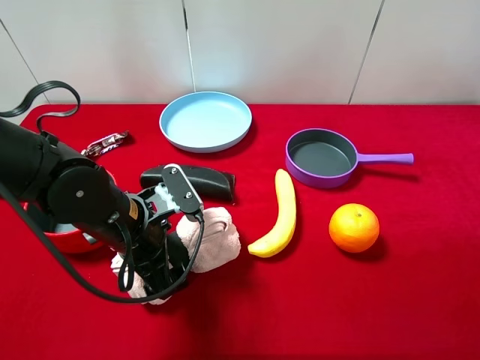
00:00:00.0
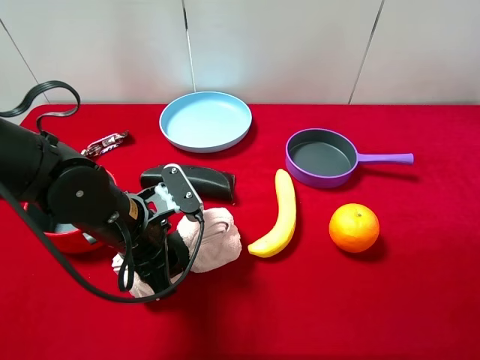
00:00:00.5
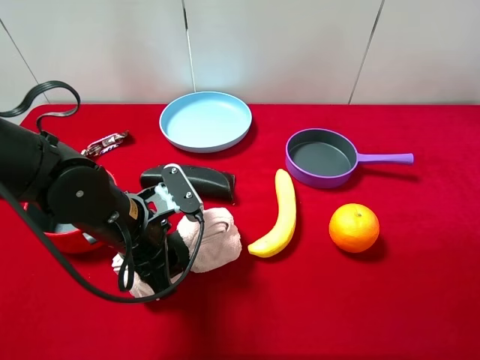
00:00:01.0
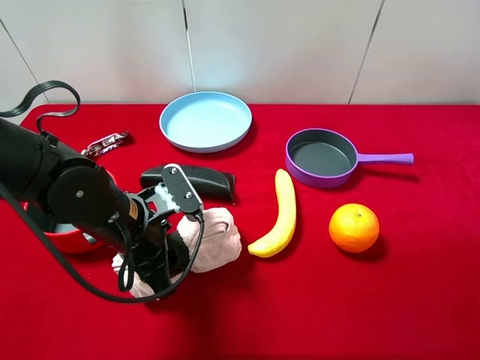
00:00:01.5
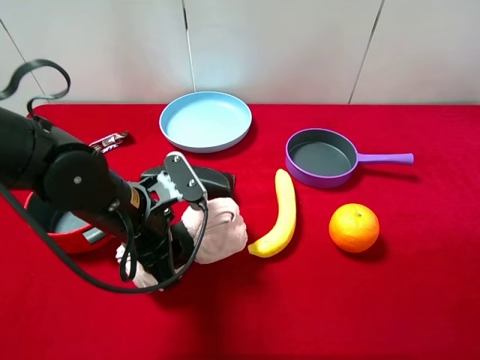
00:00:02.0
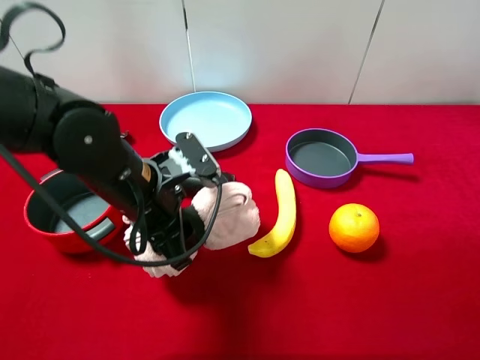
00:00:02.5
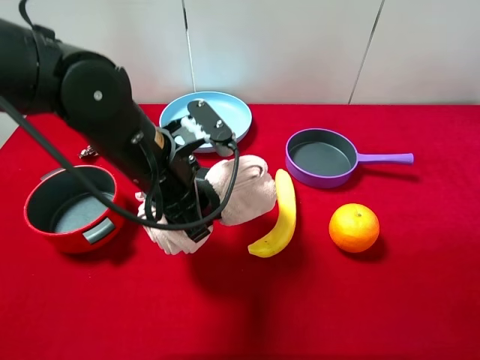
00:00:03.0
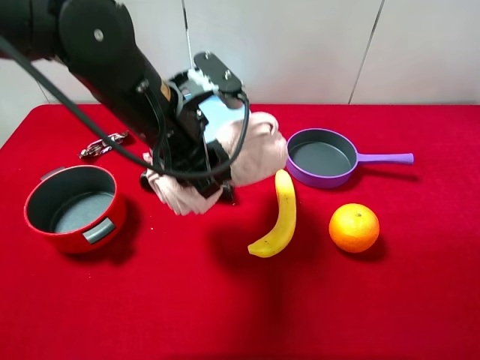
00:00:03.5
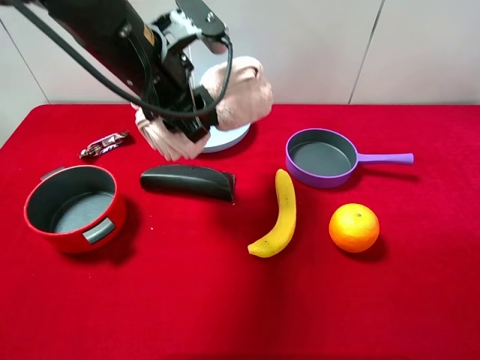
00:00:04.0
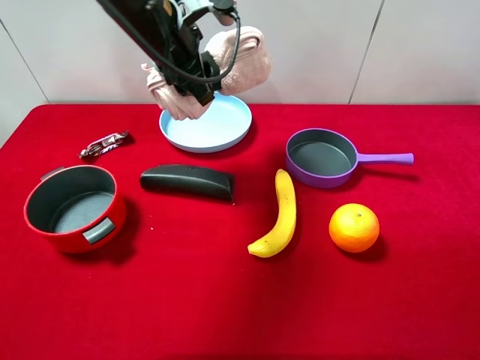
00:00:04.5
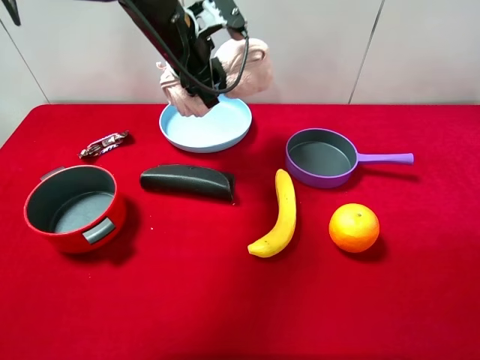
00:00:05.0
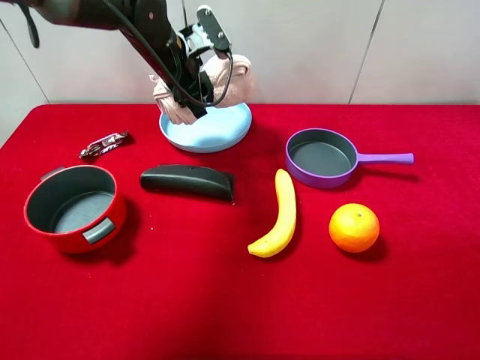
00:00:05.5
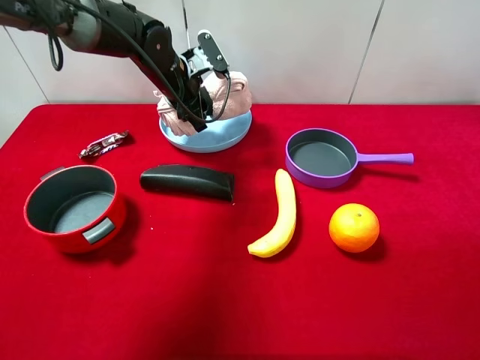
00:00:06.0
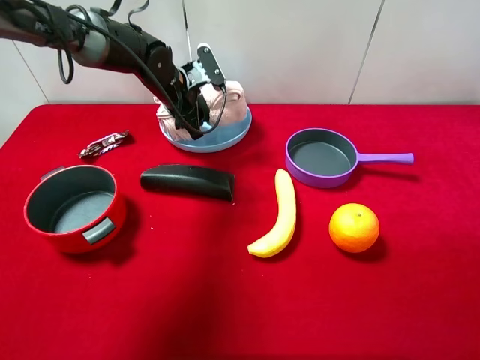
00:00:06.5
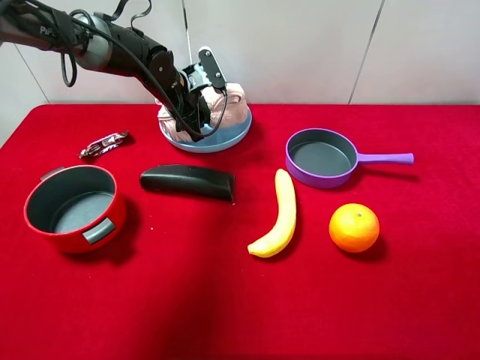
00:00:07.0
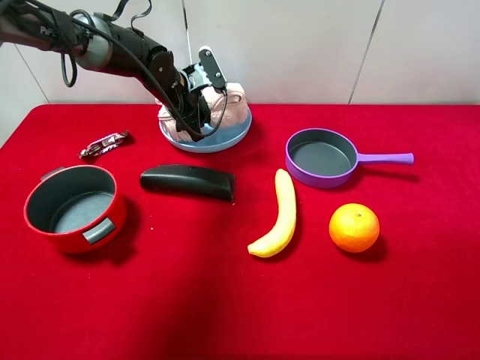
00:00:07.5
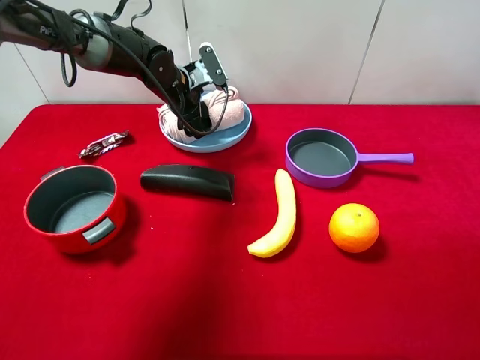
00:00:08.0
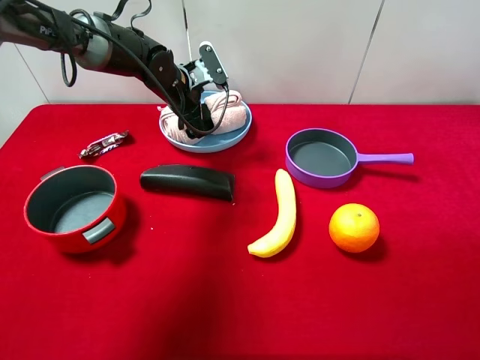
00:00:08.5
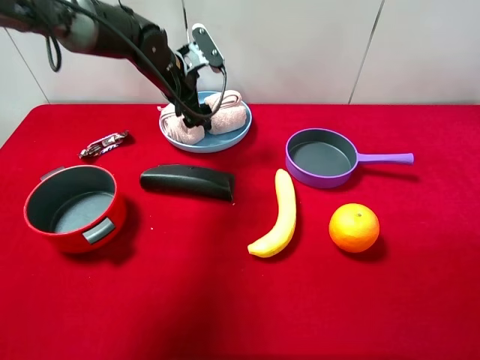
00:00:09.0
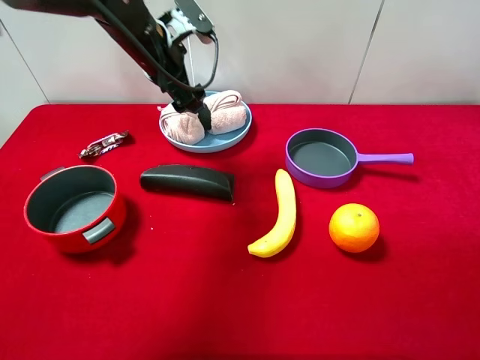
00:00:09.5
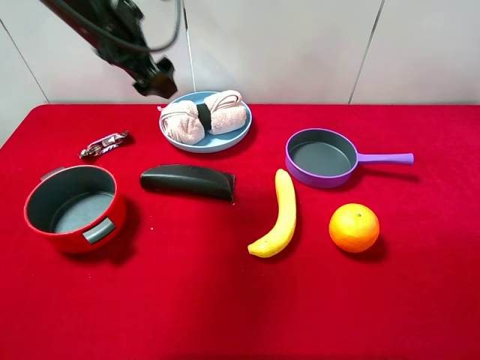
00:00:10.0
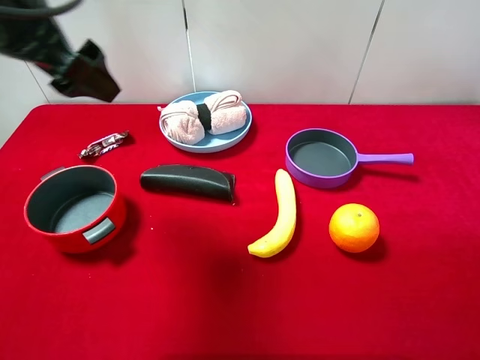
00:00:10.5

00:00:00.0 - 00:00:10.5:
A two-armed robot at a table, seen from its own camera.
Task of the whole recording: pick up an item with a gripper and place it in a random container on the desktop.
00:00:00.0 - 00:00:02.0: The left gripper closes.
00:00:02.0 - 00:00:04.0: The left gripper moves upward and forward, approximately 15 cm.
00:00:04.0 - 00:00:06.5: The left gripper shifts approximately 20 cm forward and downward.
00:00:06.5 - 00:00:08.5: The left gripper opens its fingers.
00:00:08.5 - 00:00:10.5: The left gripper moves backward, upward and to the left, some 30 cm.

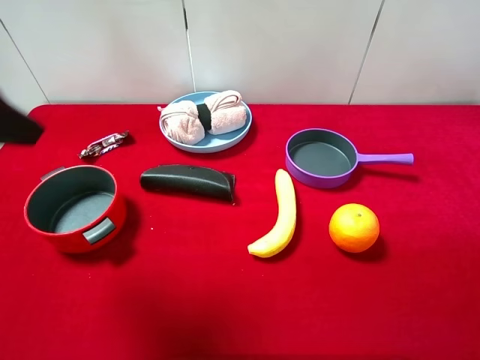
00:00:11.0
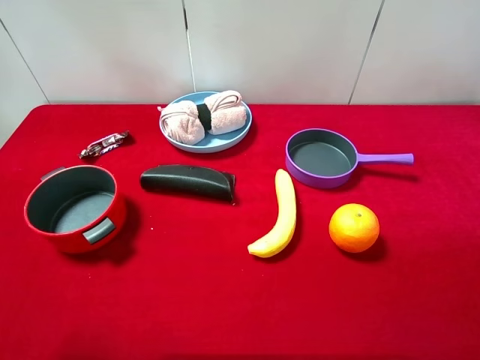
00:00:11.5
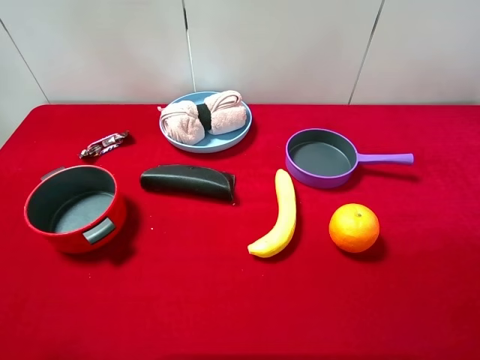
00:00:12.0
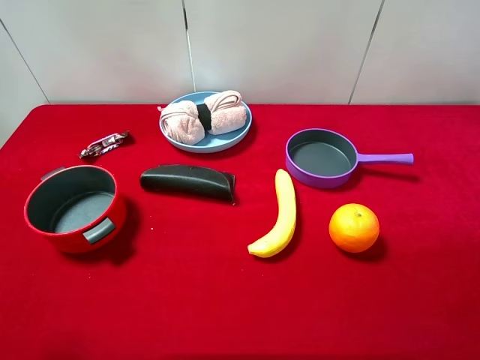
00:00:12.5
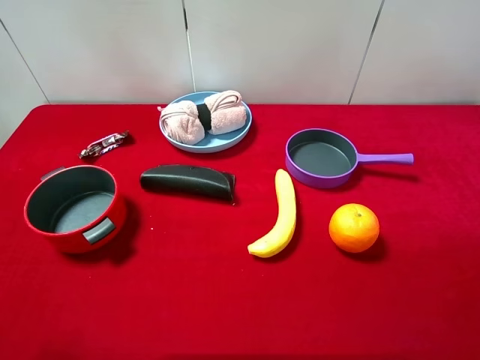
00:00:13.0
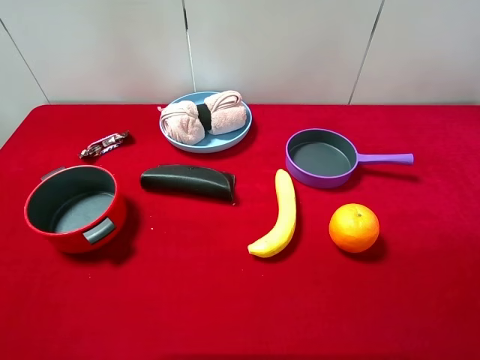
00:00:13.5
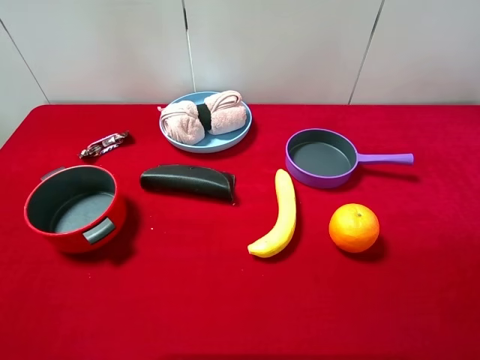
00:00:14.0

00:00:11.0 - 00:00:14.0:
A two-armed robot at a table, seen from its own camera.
Task of the whole recording: pick up an item with a gripper and place it in a random container on the desktop.
00:00:11.0 - 00:00:12.5: The left gripper shifts some 15 cm backward and downward.

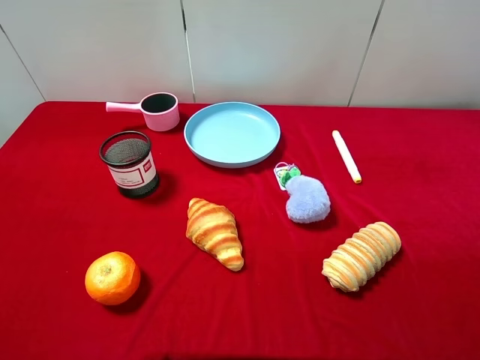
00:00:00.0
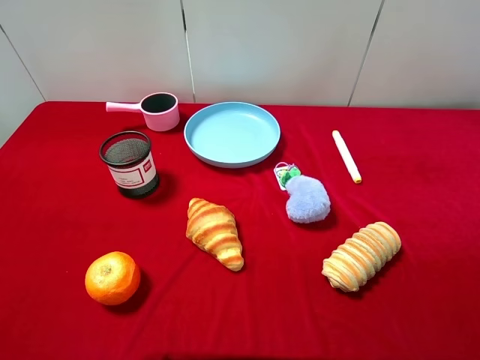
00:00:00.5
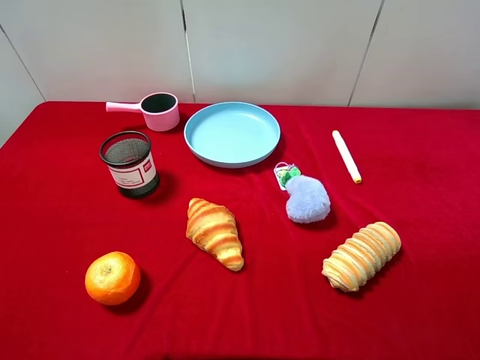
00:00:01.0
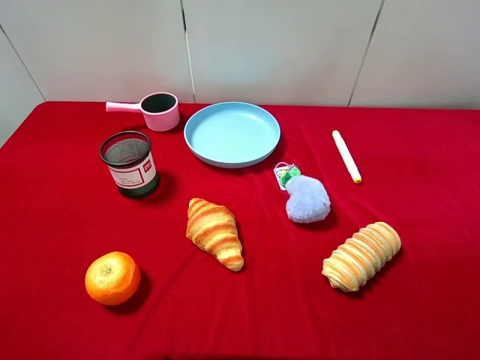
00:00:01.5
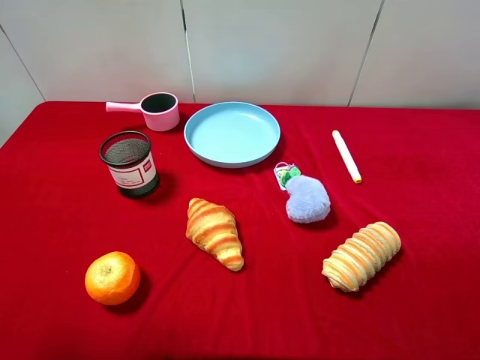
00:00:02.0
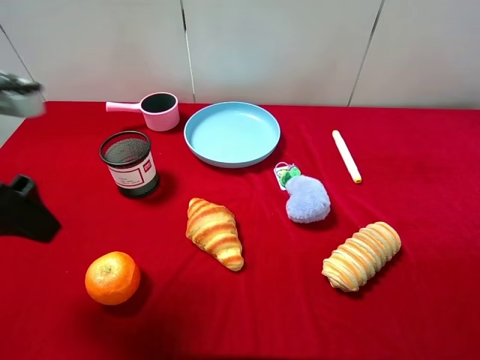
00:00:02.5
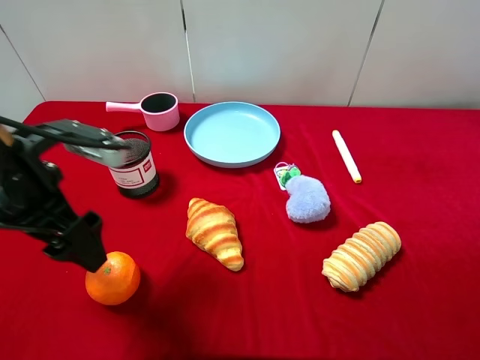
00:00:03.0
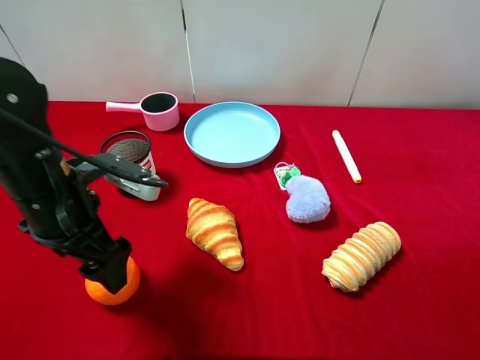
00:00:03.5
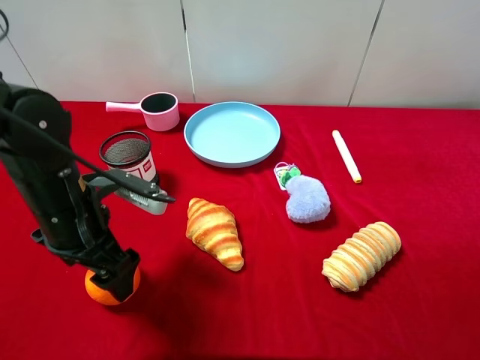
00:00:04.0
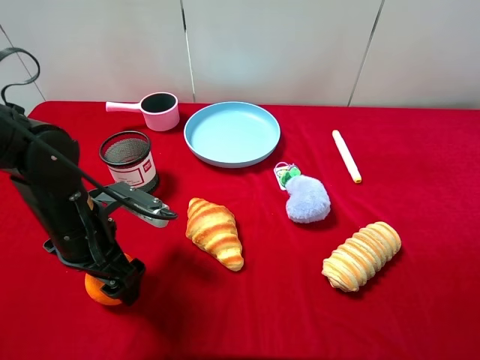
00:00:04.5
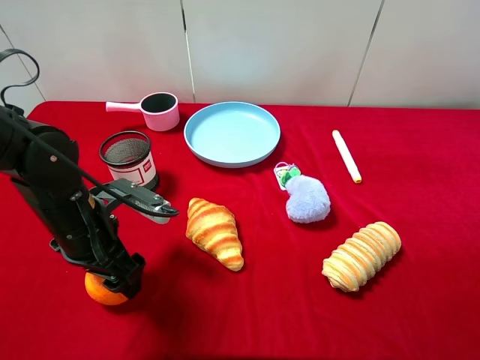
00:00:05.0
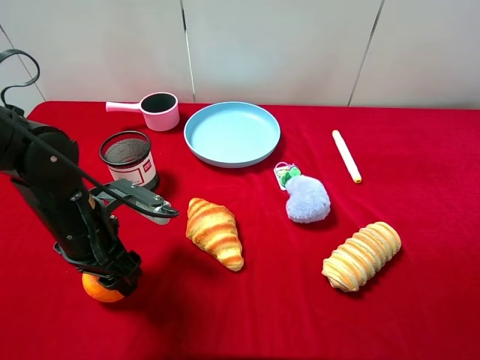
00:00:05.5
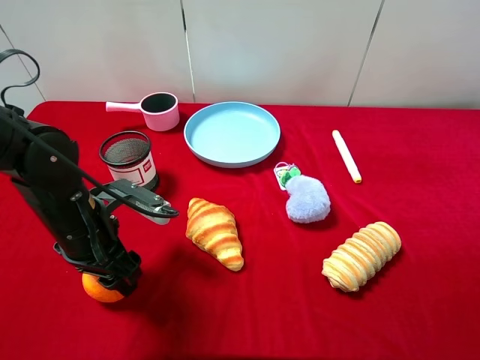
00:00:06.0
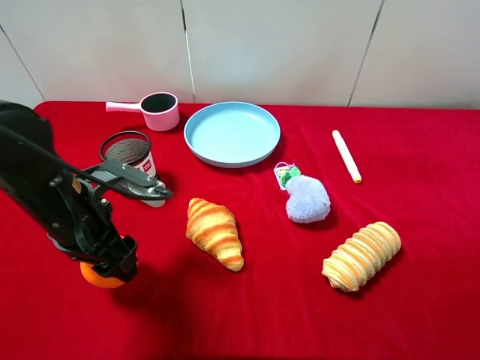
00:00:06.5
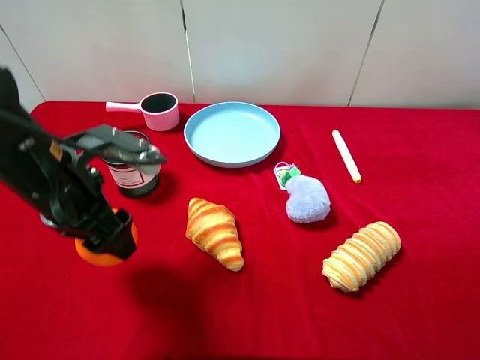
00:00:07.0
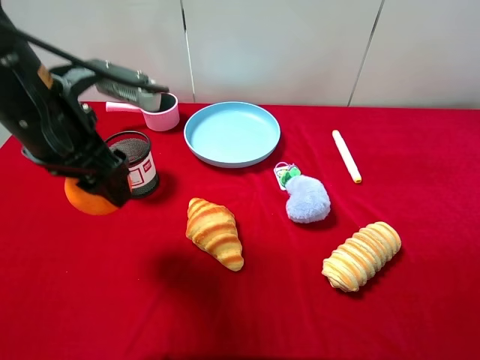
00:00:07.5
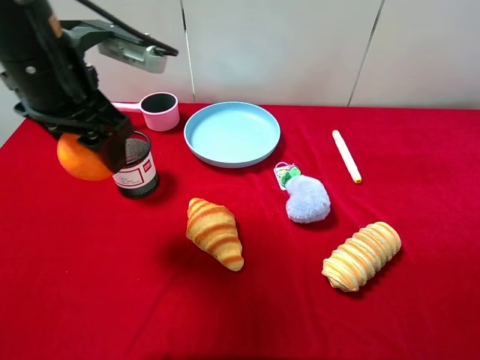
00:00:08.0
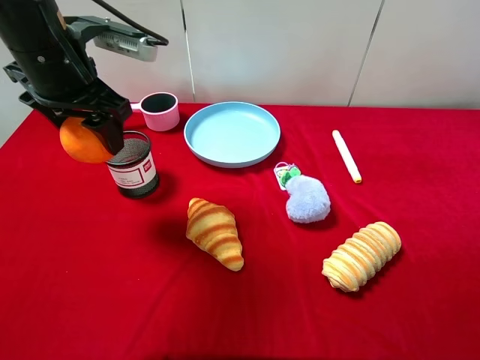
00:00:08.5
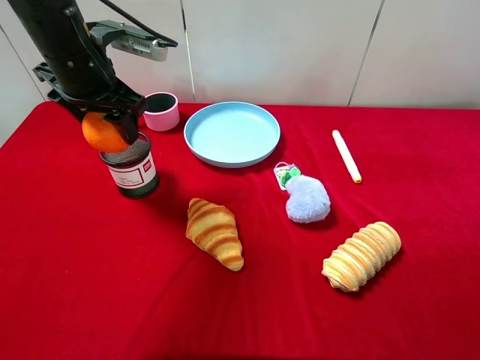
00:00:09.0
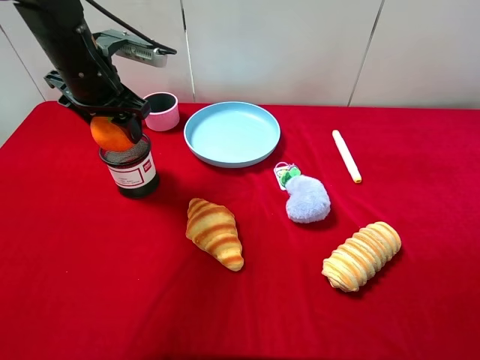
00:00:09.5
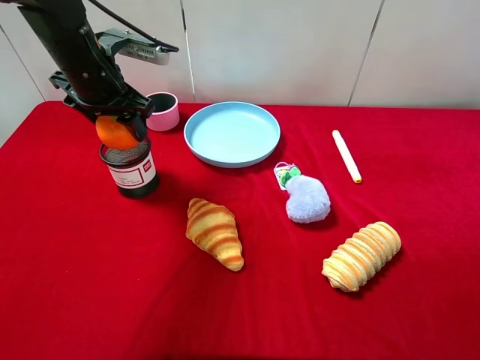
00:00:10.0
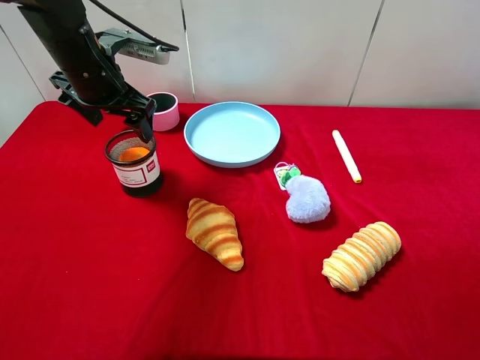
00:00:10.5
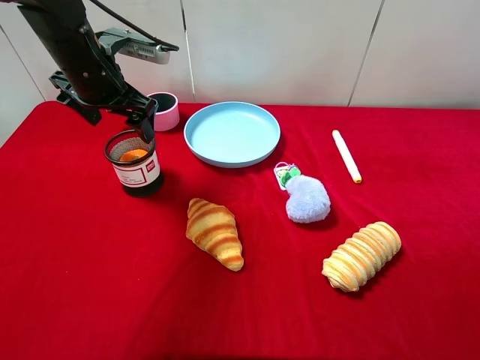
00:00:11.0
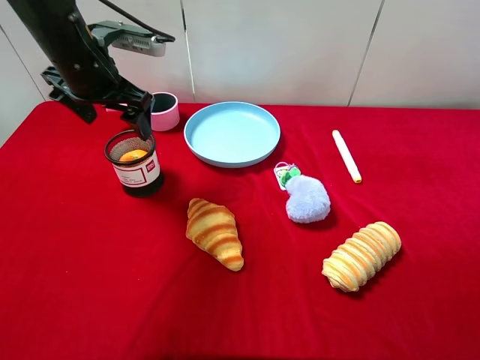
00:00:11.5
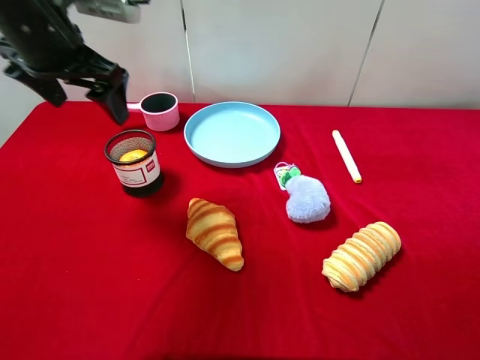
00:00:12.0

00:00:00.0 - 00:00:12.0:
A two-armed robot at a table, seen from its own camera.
Task of the whole recording: pick up an item with a gripper and place it in a random container on the desktop.
00:00:02.0 - 00:00:04.0: The left gripper moves downward, to the right and forward, roughly 20 cm.
00:00:04.0 - 00:00:06.0: The left gripper closes.
00:00:06.0 - 00:00:08.0: The left gripper heads upward, covering about 15 cm.
00:00:08.0 - 00:00:10.0: The left gripper shifts about 10 cm forward and downward.
00:00:10.0 - 00:00:12.0: The left gripper heads upward, covering approximately 10 cm, and opens.
